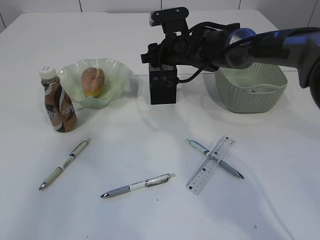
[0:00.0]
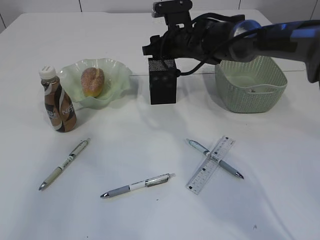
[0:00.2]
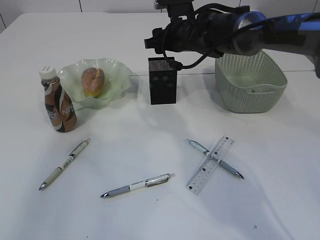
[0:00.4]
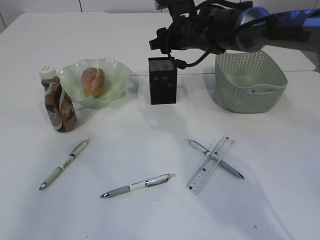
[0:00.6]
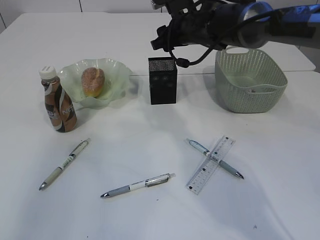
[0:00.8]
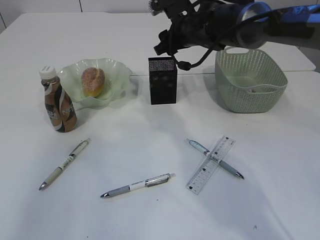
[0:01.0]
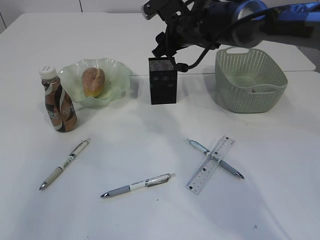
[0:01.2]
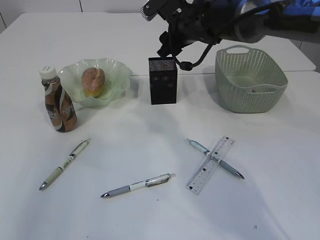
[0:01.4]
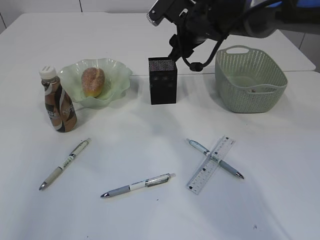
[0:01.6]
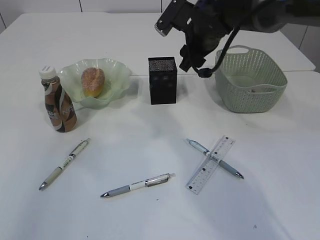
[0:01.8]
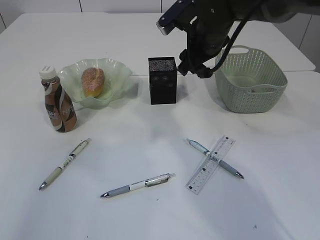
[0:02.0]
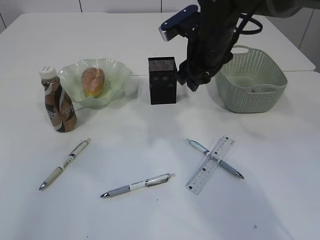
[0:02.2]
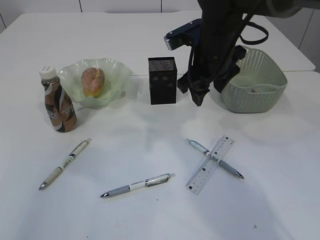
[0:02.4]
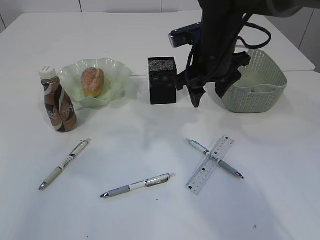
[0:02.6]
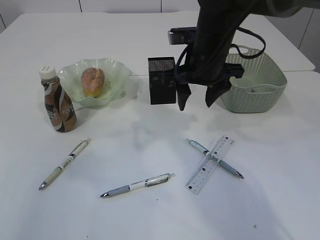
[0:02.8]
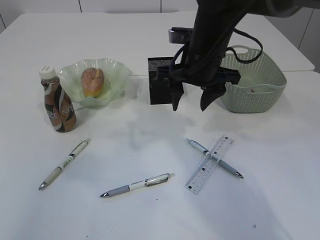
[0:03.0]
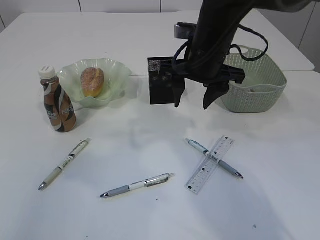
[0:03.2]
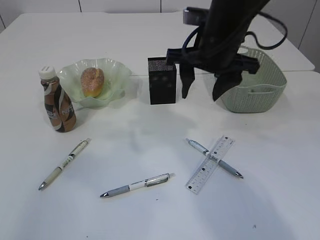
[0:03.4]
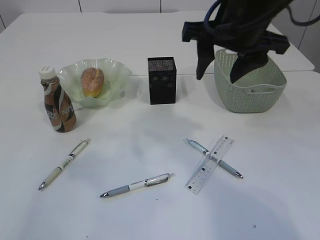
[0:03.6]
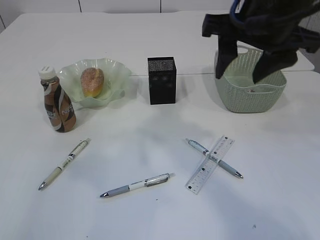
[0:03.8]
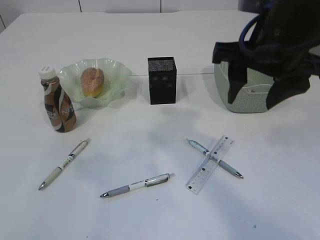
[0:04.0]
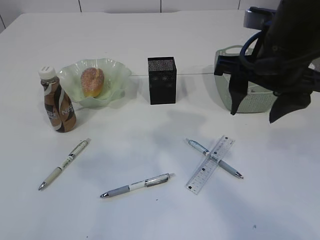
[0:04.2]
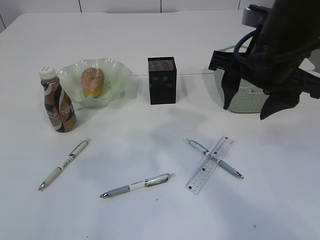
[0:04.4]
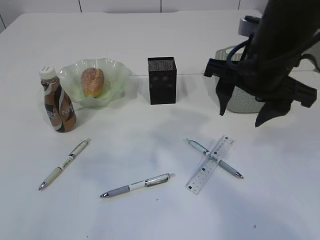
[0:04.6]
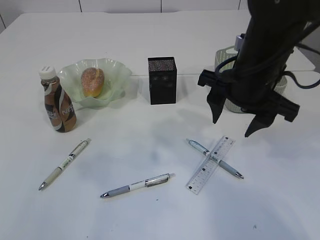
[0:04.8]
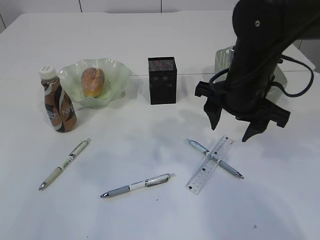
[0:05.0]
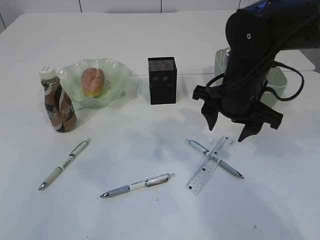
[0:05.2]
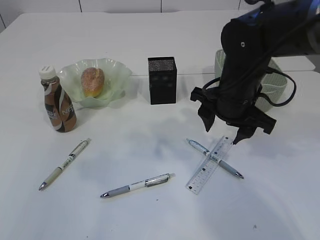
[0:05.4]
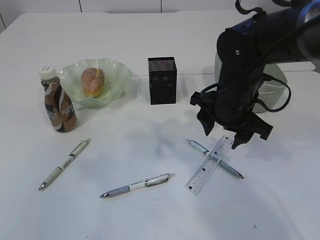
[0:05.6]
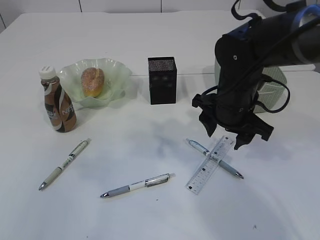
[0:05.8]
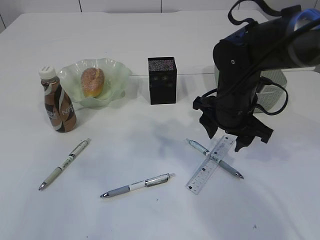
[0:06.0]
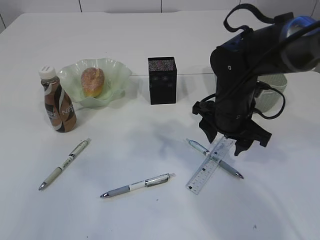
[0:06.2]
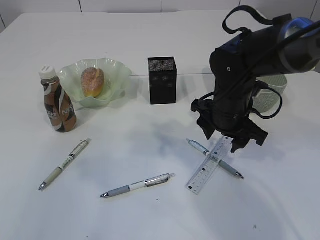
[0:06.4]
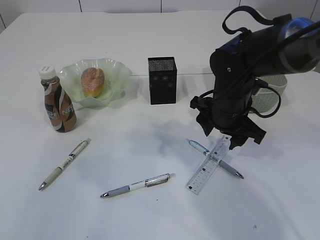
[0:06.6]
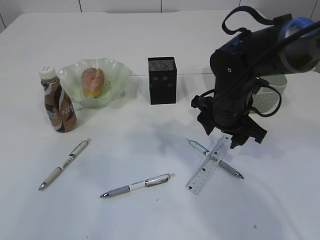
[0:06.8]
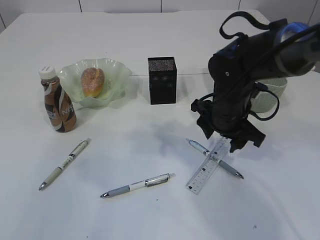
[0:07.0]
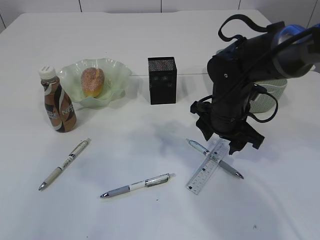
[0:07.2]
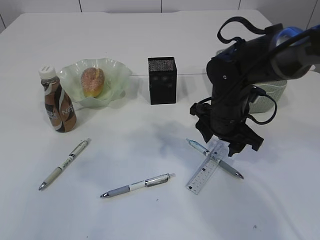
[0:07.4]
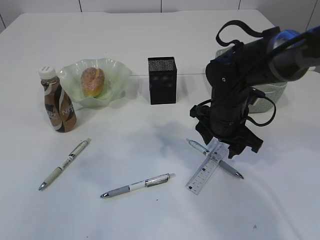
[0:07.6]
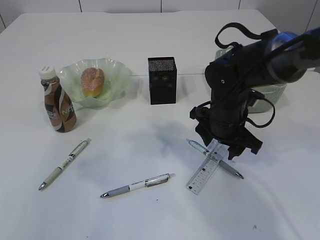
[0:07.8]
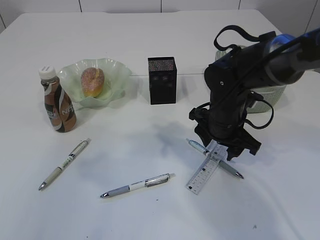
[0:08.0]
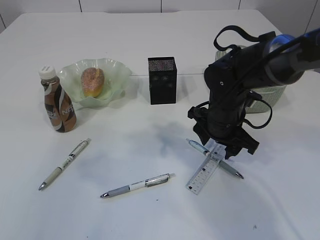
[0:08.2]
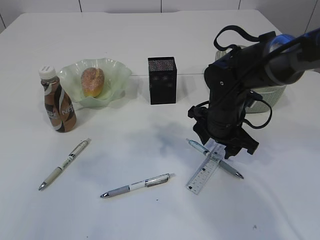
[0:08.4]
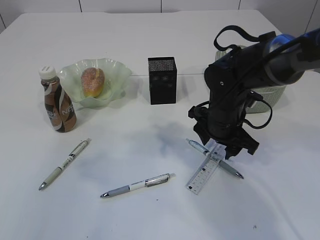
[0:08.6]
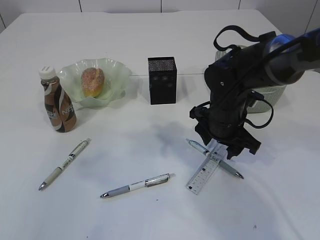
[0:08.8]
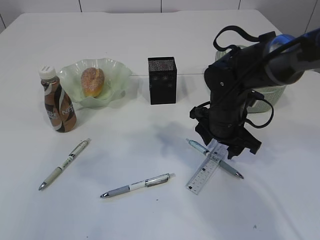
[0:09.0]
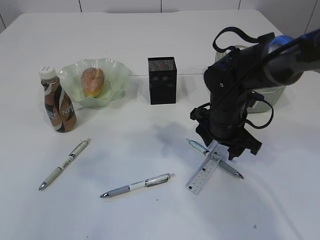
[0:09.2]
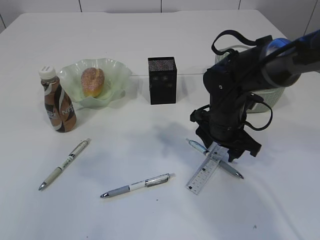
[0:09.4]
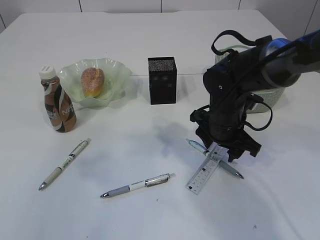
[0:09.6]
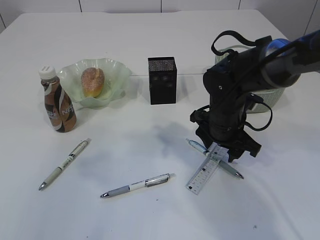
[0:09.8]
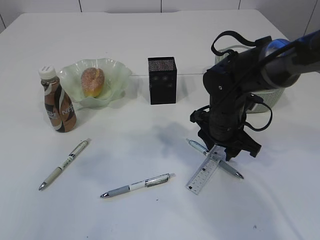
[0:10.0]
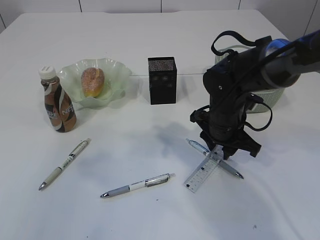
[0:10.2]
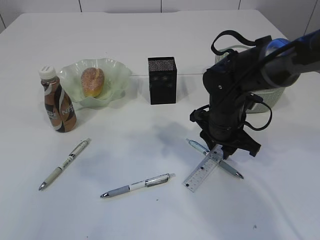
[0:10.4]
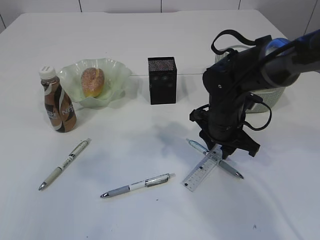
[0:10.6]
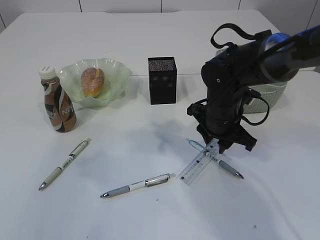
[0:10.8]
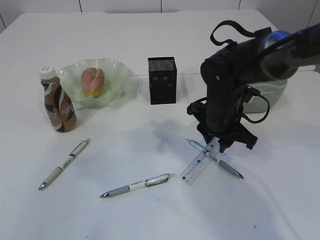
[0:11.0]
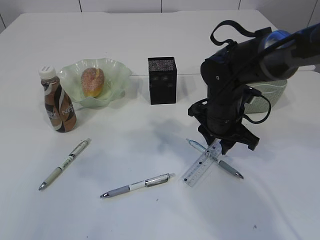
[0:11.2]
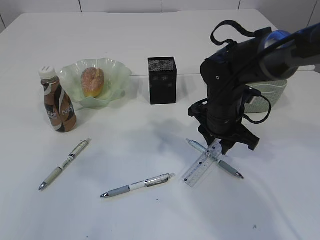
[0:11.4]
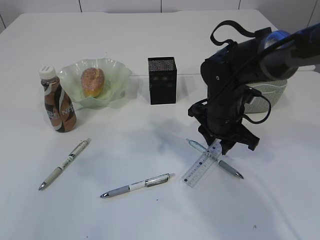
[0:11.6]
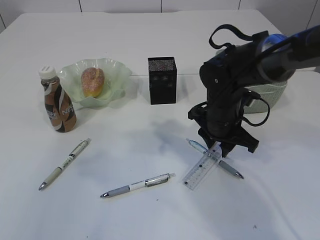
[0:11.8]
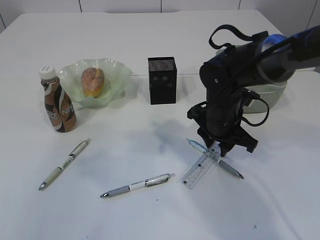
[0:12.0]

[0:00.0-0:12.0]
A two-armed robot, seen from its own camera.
0:00.0 to 0:01.6: The right gripper travels upward by roughly 5 cm.
0:01.6 to 0:03.0: The right gripper goes approximately 10 cm backward.
0:03.0 to 0:04.4: The right gripper moves backward, to the right and upward, approximately 15 cm.
0:04.4 to 0:06.0: The right gripper shifts about 15 cm downward and forward.
0:06.0 to 0:07.6: The grippers make only small movements.
0:07.6 to 0:09.0: Neither gripper changes place.
0:09.0 to 0:10.4: The right gripper closes up.
0:10.4 to 0:12.0: The grippers stay close to where they were, moving slightly.

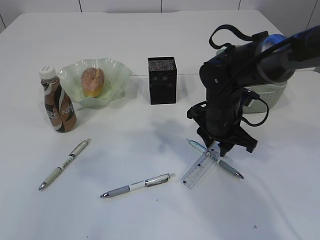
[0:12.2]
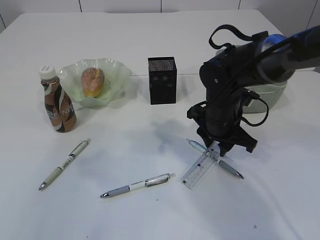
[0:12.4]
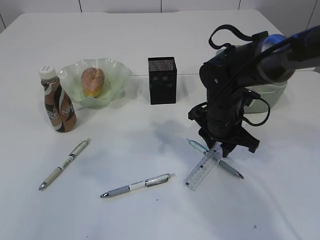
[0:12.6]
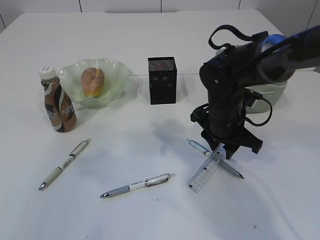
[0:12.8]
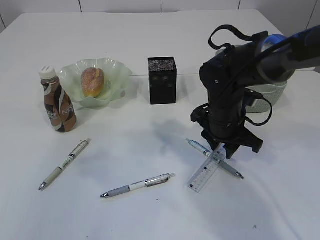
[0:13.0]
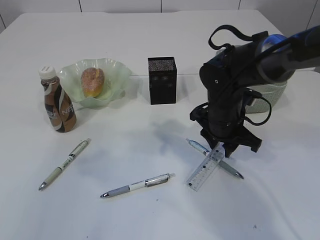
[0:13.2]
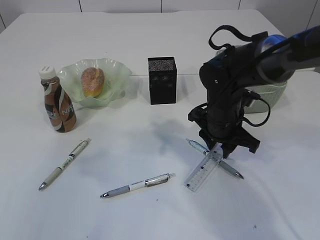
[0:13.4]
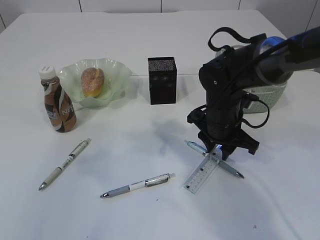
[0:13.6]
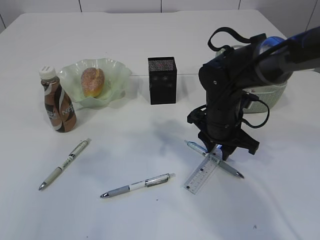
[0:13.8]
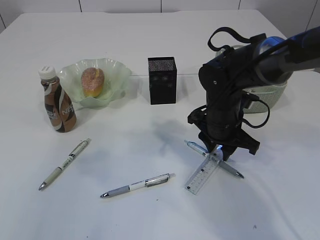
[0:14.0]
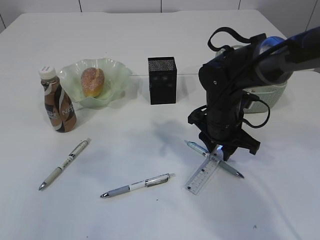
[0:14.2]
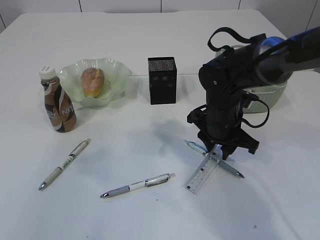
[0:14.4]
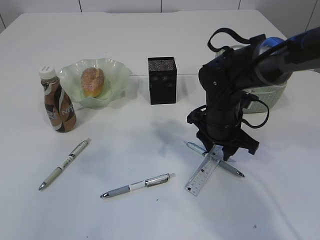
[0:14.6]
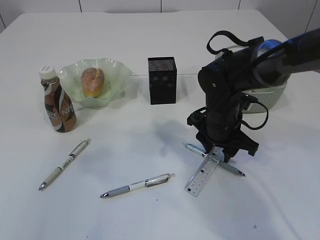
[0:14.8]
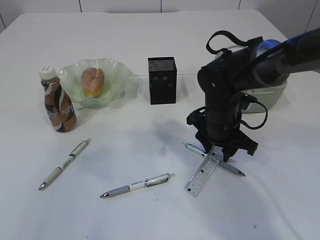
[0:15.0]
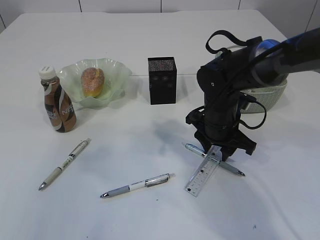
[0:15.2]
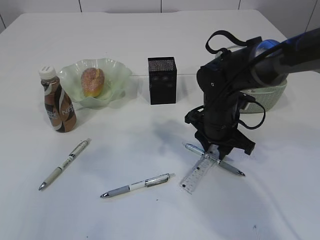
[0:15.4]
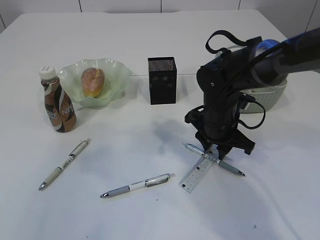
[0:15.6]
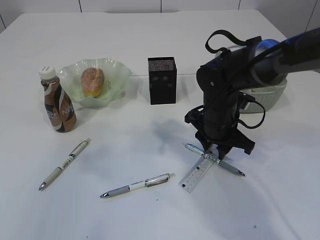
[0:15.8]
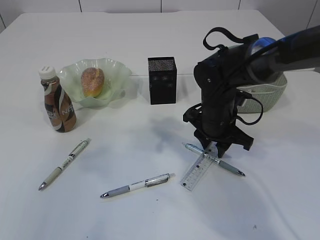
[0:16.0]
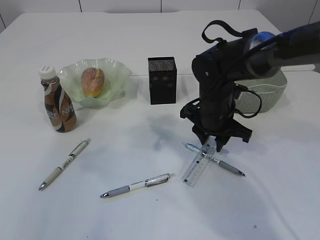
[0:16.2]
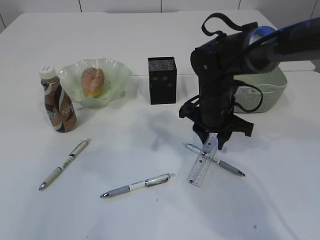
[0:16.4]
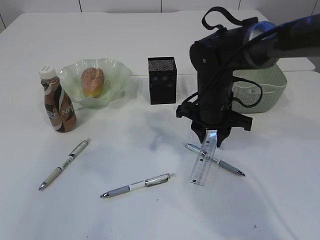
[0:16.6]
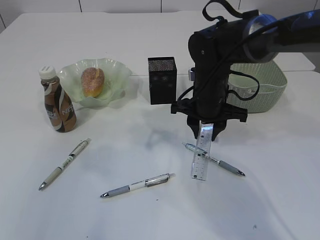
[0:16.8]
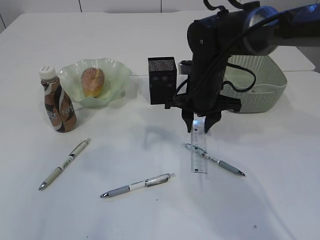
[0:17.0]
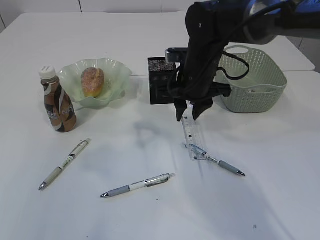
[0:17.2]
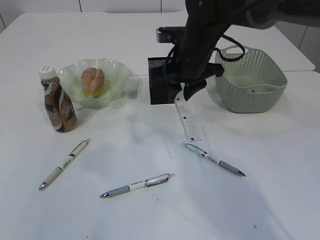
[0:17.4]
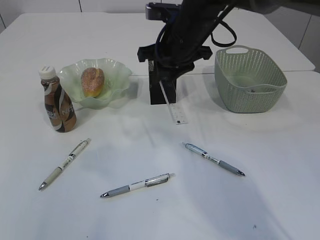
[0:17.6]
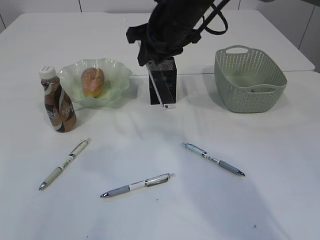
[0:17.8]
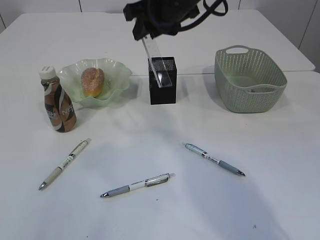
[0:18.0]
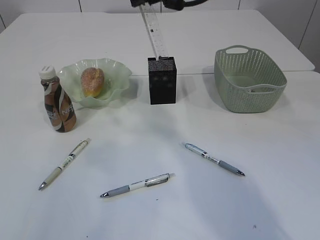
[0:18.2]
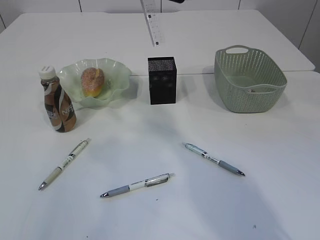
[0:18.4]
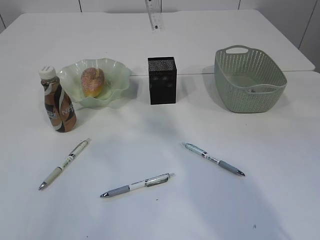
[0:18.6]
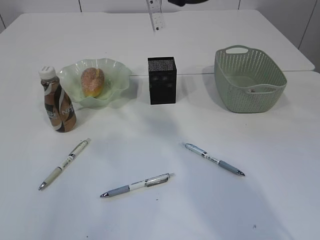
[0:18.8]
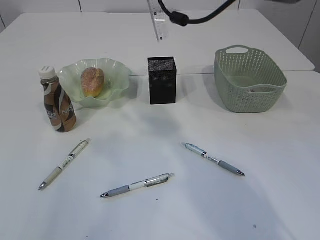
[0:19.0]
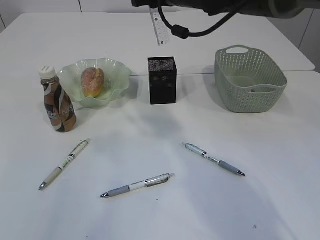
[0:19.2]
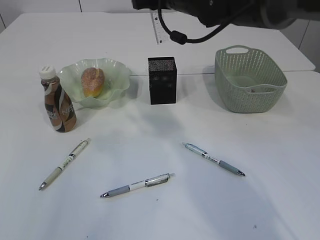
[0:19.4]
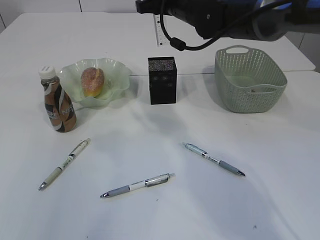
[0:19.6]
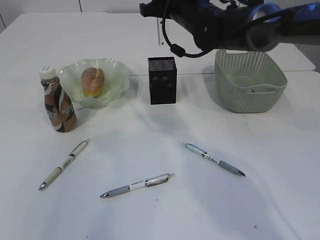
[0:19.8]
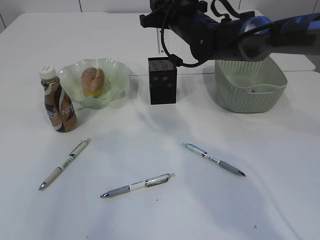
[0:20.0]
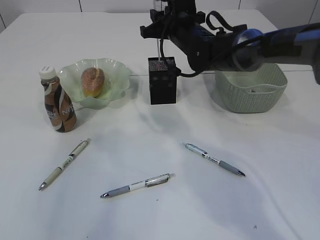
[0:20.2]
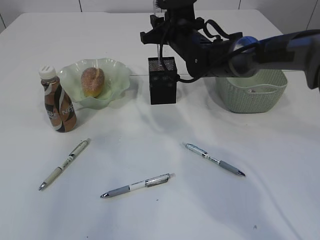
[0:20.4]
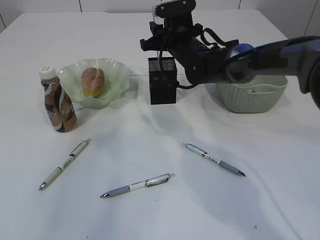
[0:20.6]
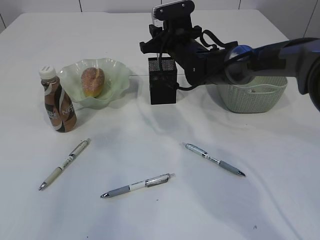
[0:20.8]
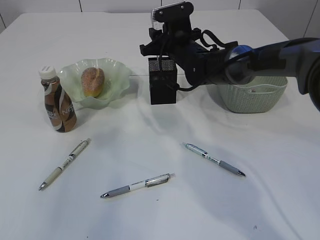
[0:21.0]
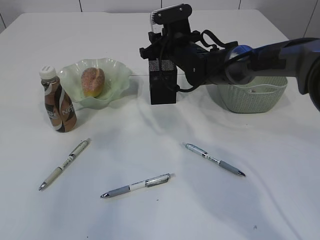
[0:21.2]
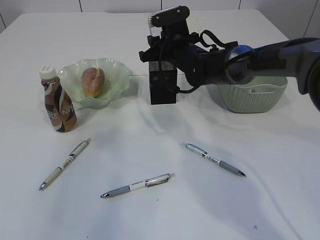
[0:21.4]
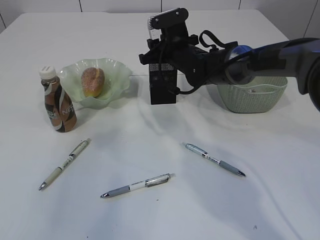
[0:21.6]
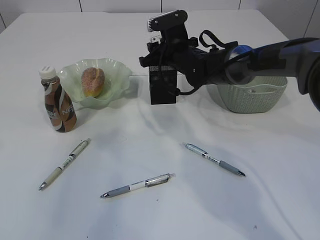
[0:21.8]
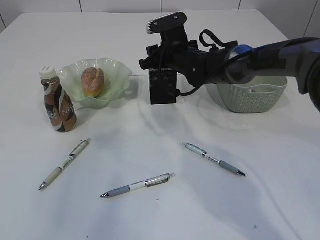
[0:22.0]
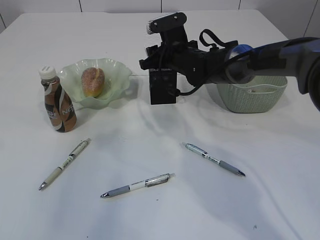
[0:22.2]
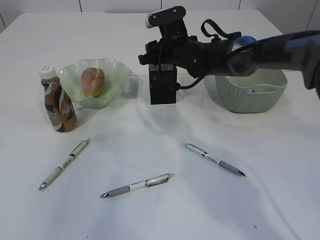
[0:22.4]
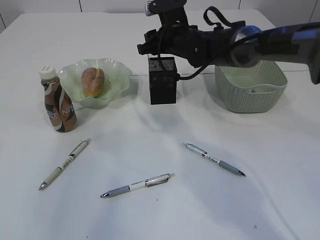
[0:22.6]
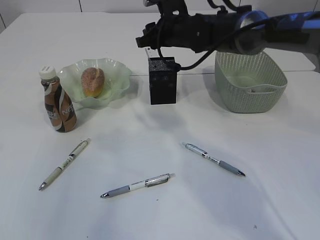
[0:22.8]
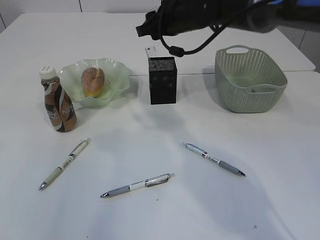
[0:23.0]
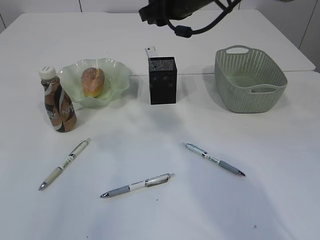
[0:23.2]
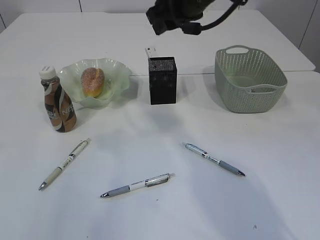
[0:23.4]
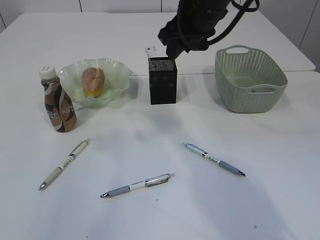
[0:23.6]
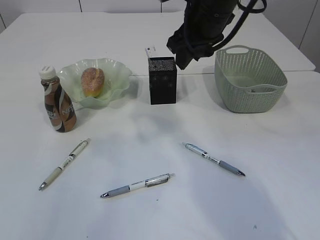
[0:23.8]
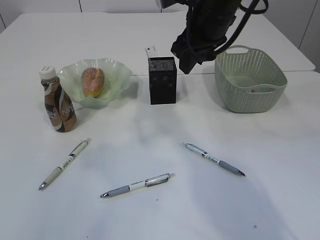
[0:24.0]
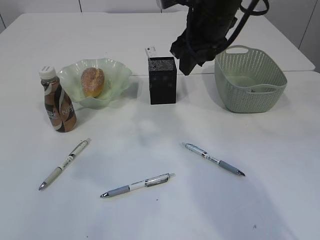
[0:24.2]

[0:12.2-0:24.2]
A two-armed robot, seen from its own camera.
Step, 0:12.2 to 0:17.2: pick up the ruler.
Step, 0:17.4 to 0:23.8: Place the ruler into the pen holder.
0:12.2 to 0:15.2: The two grippers keep their place.
0:15.2 to 0:16.6: The grippers move only a little.
0:16.6 to 0:18.2: The right gripper travels upward by about 20 cm.
0:18.2 to 0:19.8: The right gripper is displaced downward and forward by about 10 cm.
0:19.8 to 0:21.2: The right gripper is displaced downward by approximately 10 cm.
0:21.2 to 0:22.6: The grippers stay close to where they were, moving slightly.
0:22.6 to 0:24.2: The right gripper heads backward and upward, covering roughly 15 cm.
